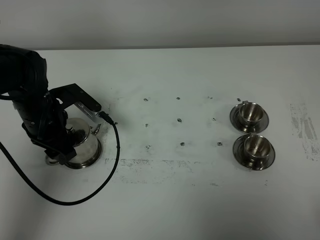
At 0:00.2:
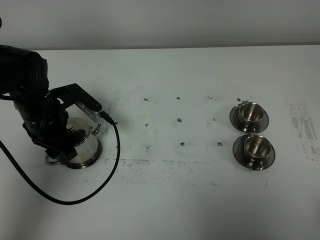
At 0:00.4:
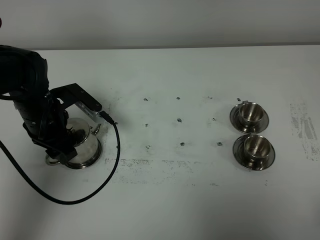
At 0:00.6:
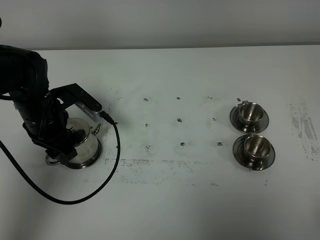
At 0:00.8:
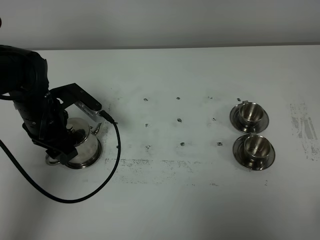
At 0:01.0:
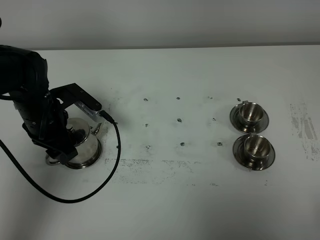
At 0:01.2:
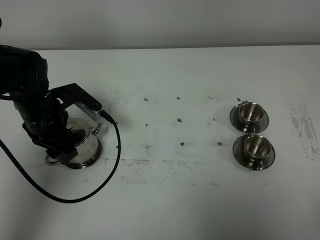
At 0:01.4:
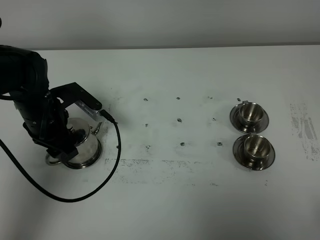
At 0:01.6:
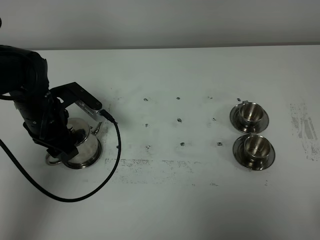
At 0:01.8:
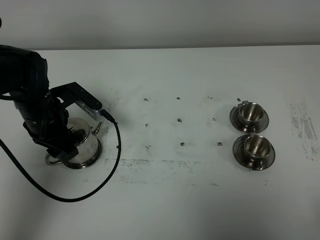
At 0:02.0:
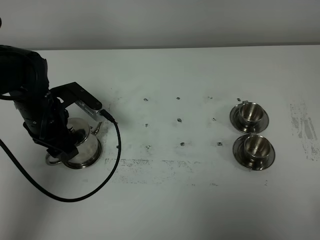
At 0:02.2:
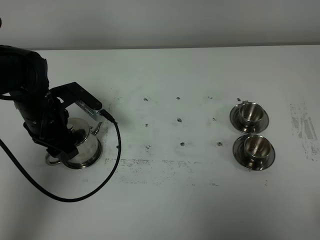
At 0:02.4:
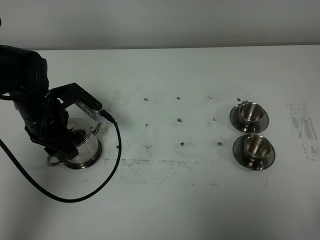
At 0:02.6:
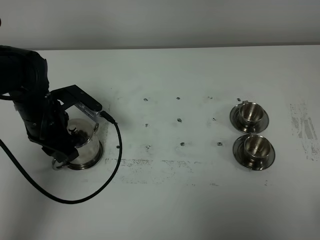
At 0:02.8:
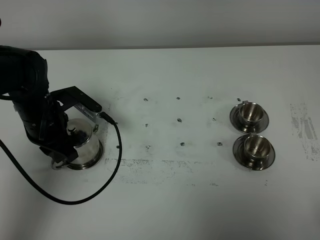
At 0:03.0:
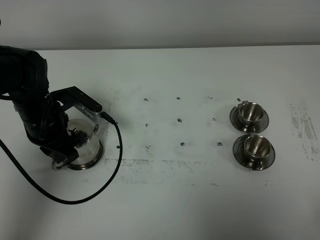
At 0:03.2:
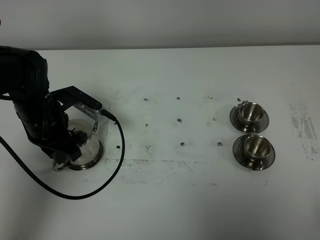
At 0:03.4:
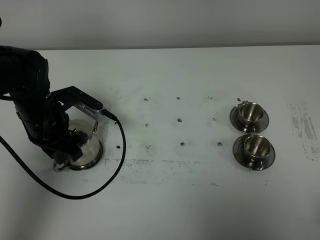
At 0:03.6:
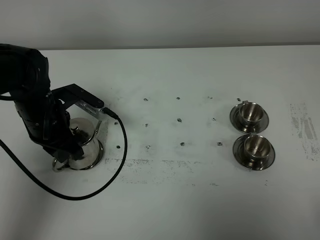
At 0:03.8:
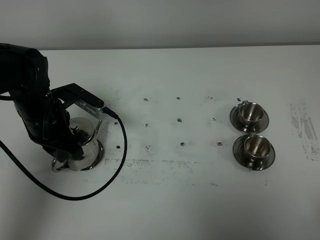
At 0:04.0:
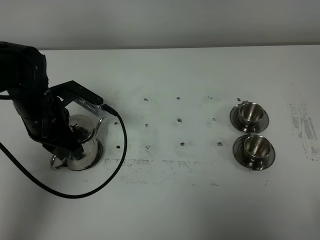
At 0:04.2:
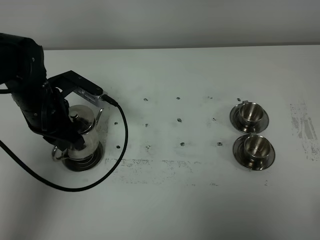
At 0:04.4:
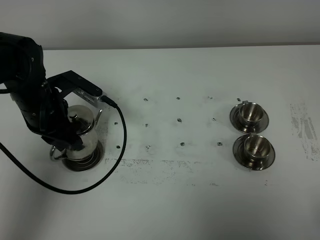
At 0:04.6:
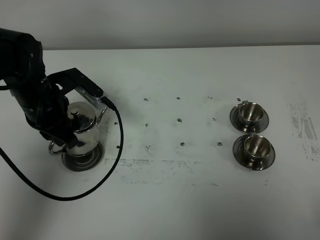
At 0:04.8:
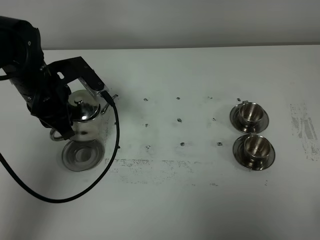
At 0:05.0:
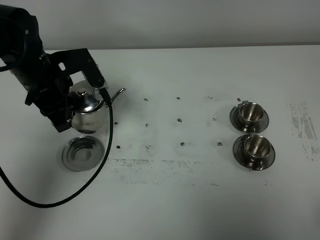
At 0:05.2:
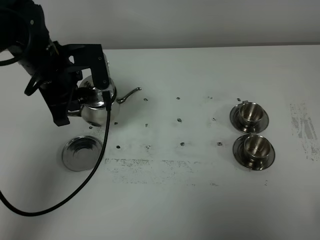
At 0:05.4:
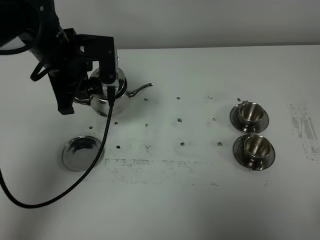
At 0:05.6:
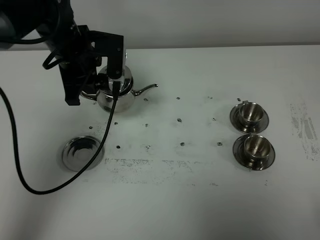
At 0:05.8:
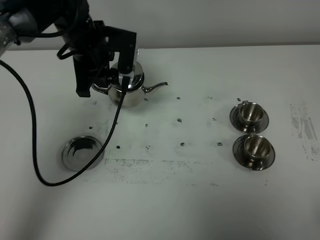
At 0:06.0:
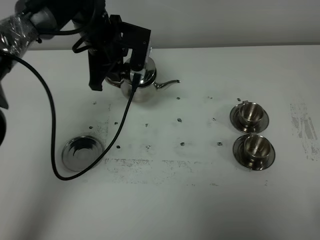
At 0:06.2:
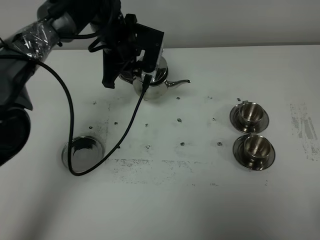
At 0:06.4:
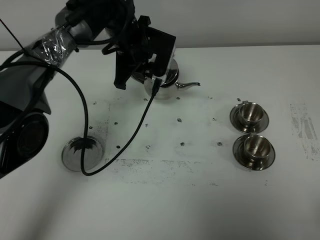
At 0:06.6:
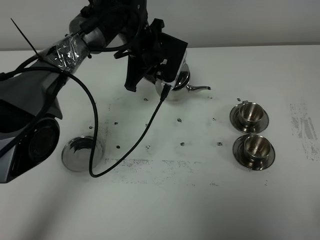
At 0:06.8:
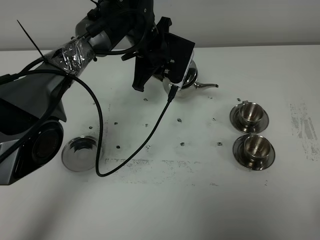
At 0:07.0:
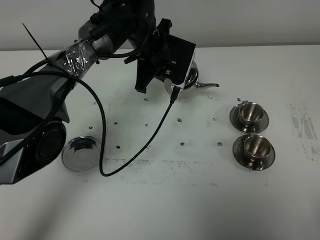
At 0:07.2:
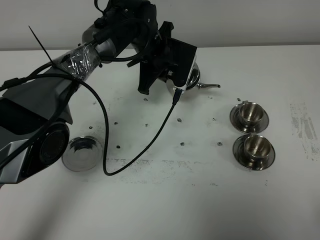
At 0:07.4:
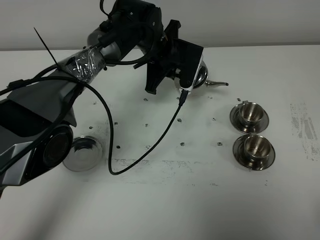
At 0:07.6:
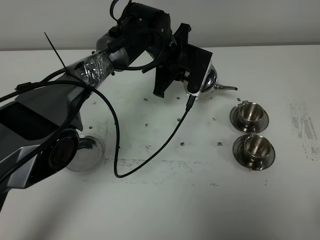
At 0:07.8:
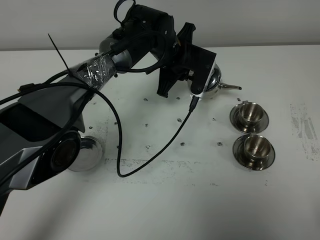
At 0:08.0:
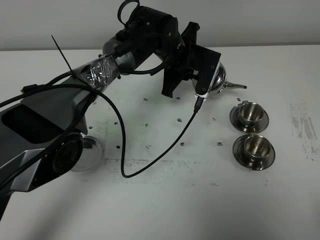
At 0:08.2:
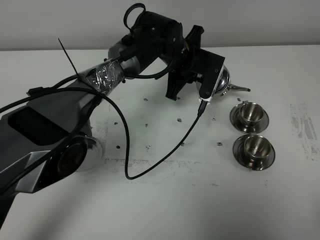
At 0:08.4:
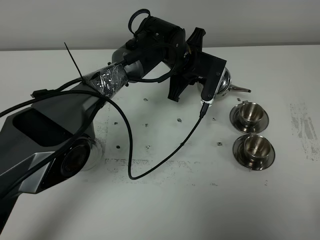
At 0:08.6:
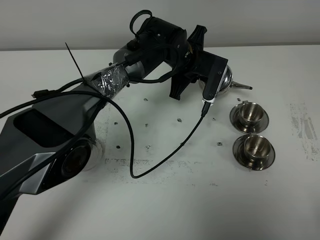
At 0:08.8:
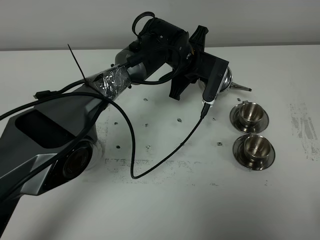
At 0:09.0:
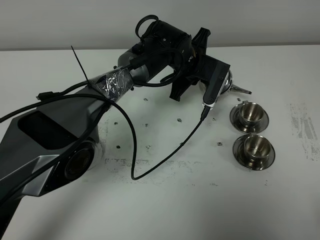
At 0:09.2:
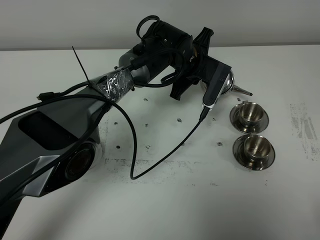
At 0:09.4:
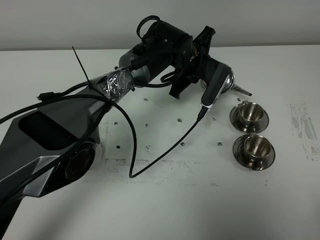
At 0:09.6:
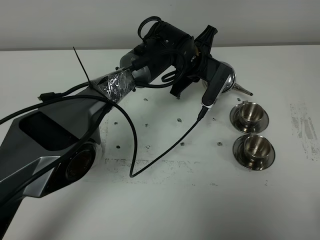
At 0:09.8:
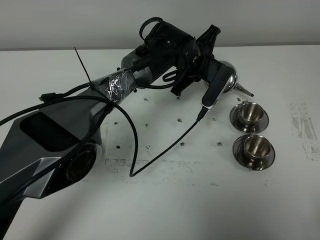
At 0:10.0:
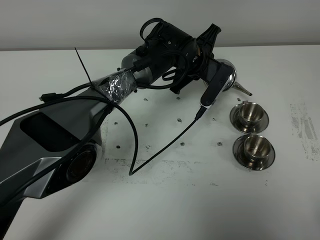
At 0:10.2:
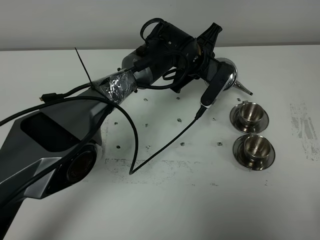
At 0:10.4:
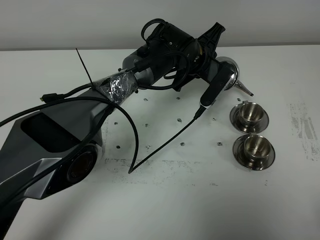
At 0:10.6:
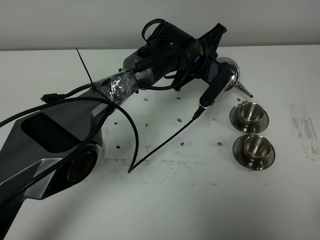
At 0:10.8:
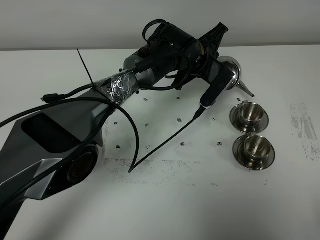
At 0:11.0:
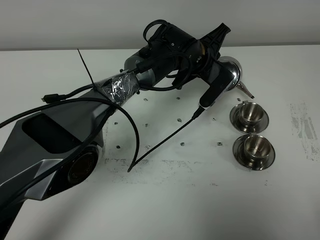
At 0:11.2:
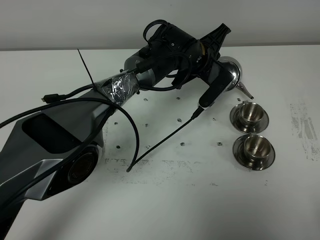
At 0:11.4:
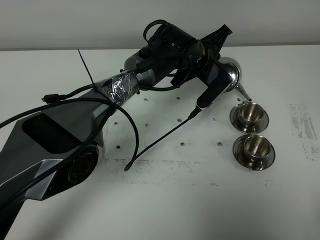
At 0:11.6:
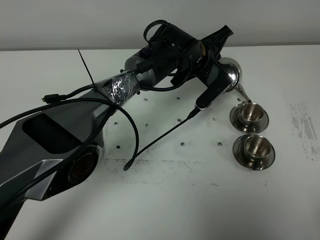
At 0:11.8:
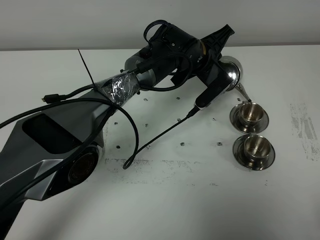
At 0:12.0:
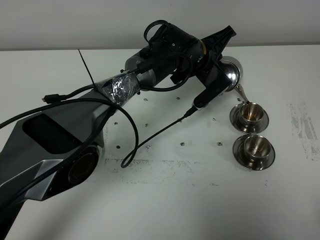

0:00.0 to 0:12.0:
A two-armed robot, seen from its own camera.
Task of the whole recording: grasp the stainless steel teapot and pour the tea into the two stainless steel teacups one by one, put the stainless steel teapot back in its original place.
Step, 0:00.0 to 0:04.0: Pick up the teapot with the left gripper.
0:00.0 to 0:01.6: Neither gripper changes place.
0:01.6 to 0:03.0: The left gripper closes.
0:03.0 to 0:04.4: The grippers make only small movements.
0:04.4 to 0:06.0: The left gripper heads forward and to the right, covering approximately 15 cm.
0:06.0 to 0:07.6: The left gripper moves to the right and downward, approximately 10 cm.
0:09.0 to 0:10.4: The grippers stay close to where they were, moving slightly.
0:10.4 to 0:12.0: The grippers make only small movements.

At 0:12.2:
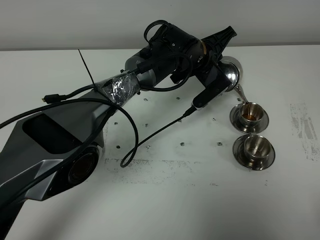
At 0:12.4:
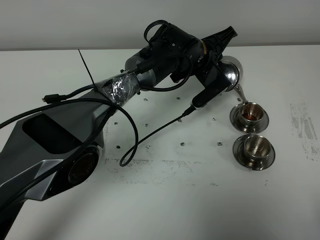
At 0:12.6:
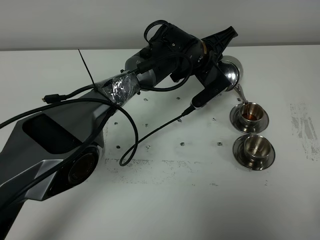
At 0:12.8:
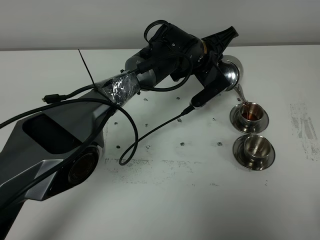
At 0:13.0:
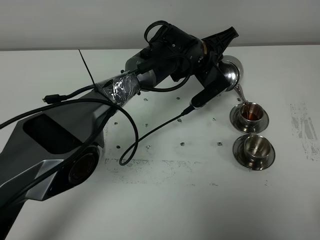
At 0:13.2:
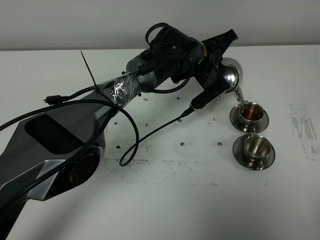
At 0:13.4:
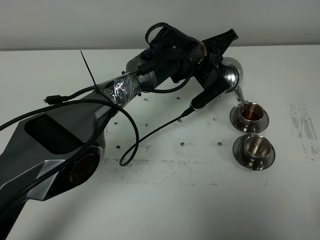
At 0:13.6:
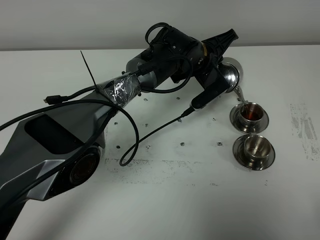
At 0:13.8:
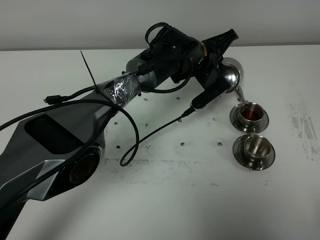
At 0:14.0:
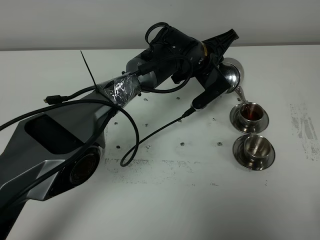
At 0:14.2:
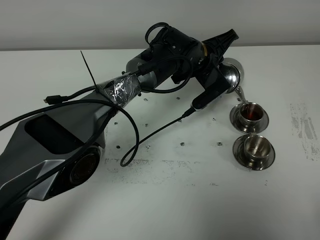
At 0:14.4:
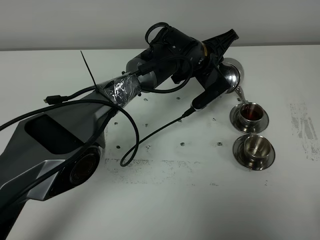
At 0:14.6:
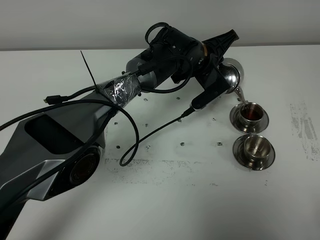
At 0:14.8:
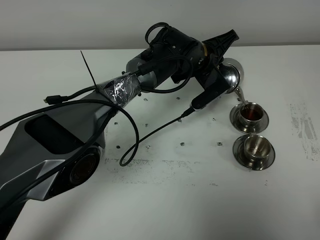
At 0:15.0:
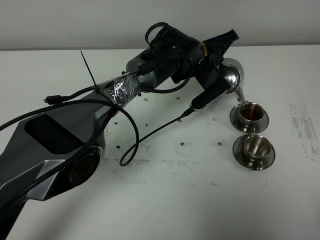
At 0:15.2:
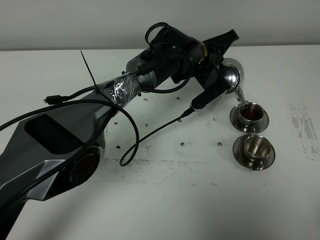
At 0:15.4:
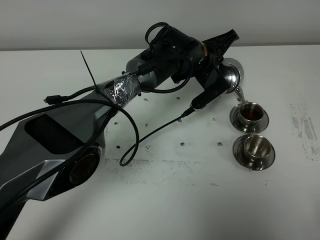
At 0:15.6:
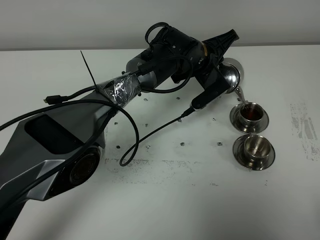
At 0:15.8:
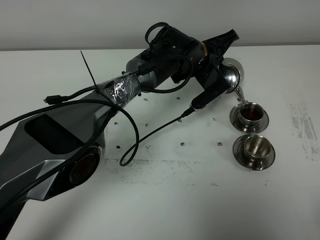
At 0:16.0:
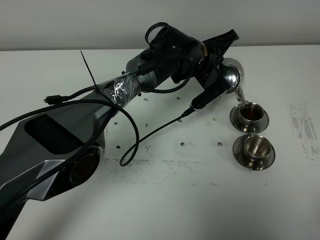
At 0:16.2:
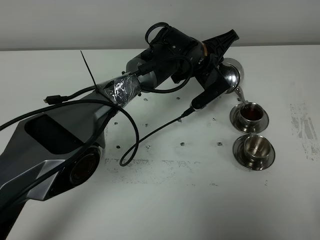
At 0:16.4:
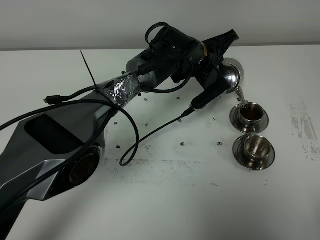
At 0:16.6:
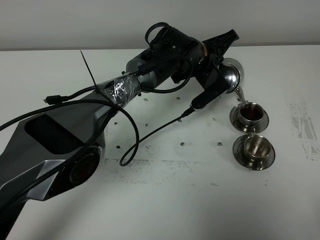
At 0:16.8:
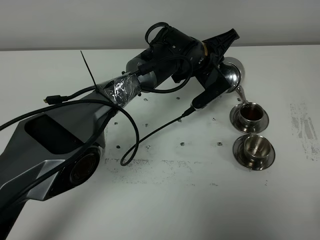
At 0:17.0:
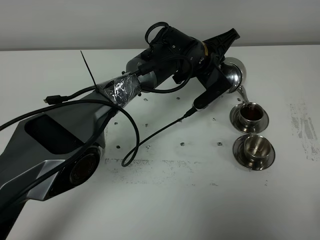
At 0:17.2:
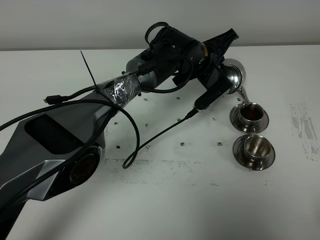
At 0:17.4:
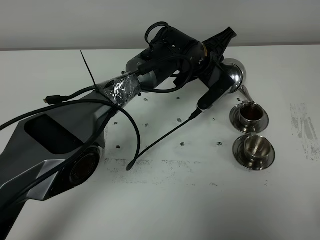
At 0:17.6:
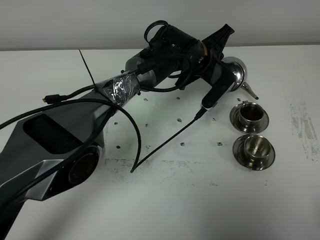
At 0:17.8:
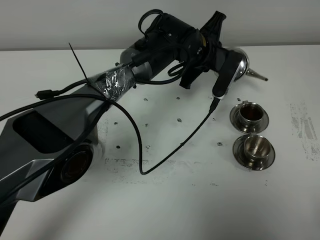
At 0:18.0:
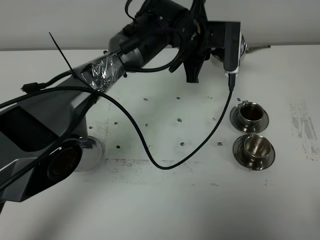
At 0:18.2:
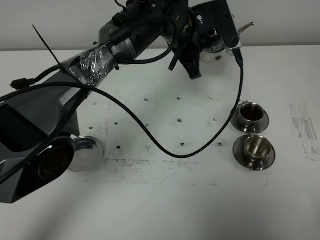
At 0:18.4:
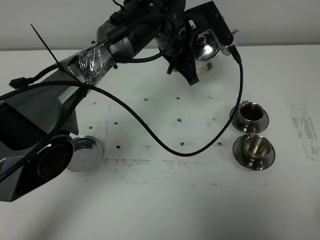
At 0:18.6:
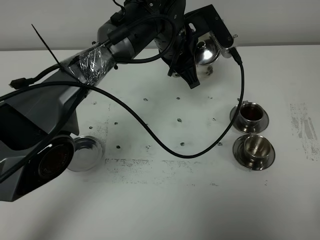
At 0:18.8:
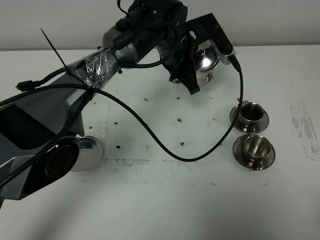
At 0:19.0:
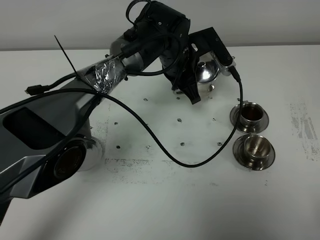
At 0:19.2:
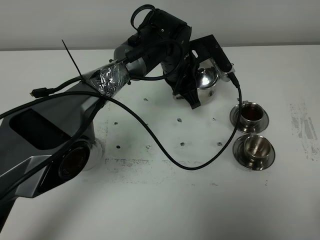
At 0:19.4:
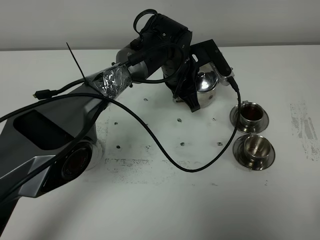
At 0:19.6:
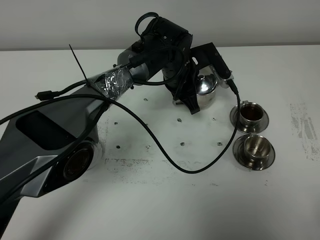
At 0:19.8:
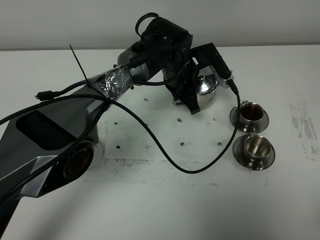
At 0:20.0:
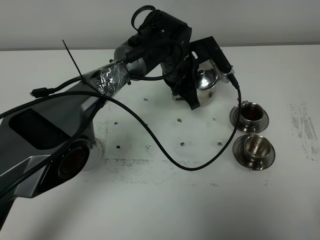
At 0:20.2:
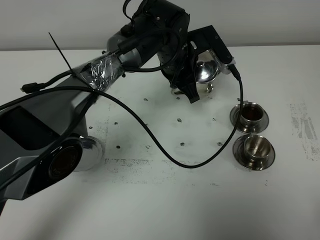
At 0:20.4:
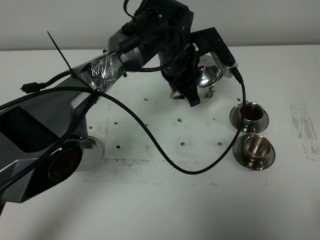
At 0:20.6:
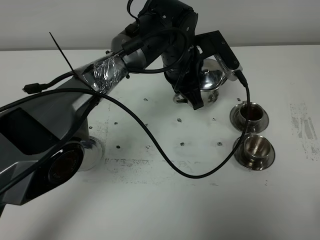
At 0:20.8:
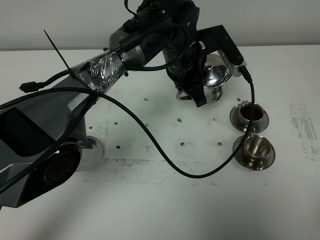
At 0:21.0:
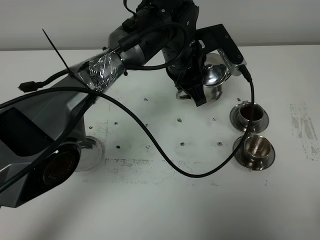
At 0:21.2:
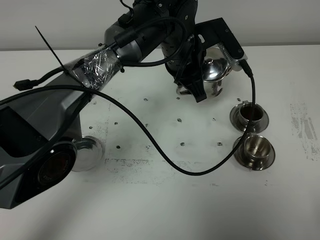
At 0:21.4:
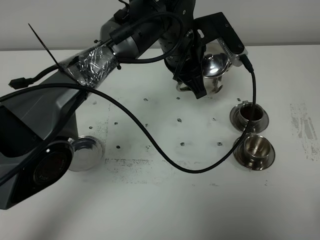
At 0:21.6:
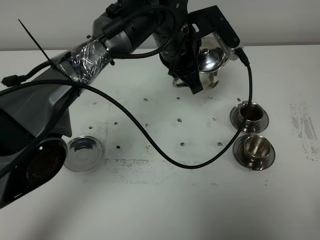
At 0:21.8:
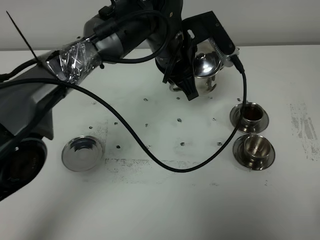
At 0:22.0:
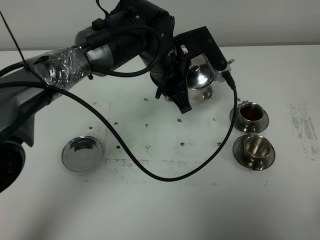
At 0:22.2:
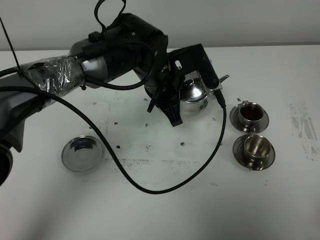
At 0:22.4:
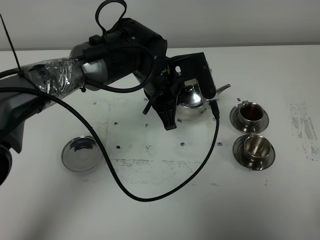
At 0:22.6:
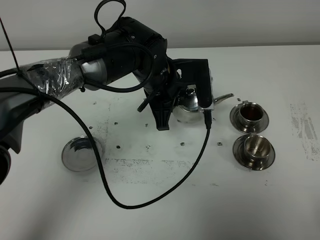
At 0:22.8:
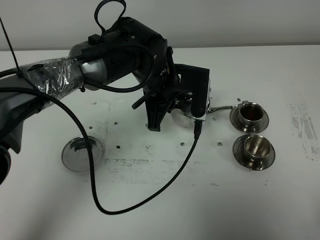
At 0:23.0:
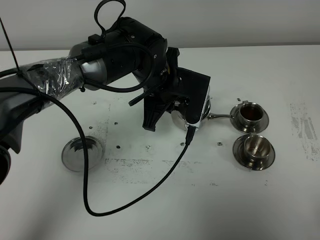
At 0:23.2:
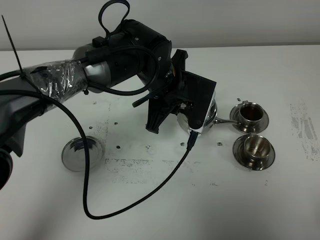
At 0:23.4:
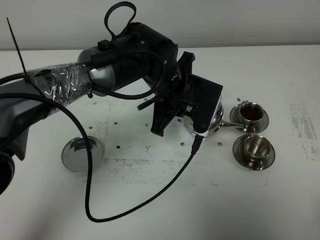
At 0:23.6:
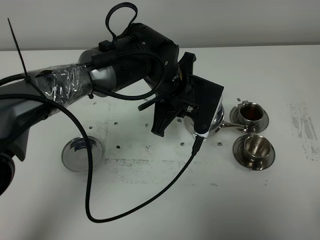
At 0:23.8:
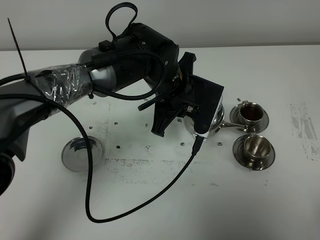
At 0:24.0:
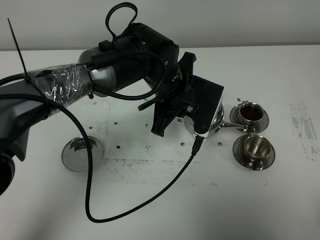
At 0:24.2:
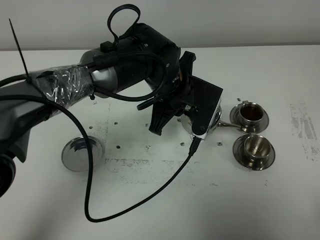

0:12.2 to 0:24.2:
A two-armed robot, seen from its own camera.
Task of the whole recording: grasp the stainless steel teapot and pour the tea into the two stainless steel teacups one by one, put the stainless steel teapot back in its original place.
0:12.2 to 0:16.6: Neither gripper changes place.
0:16.6 to 0:18.2: The left gripper heads upward, covering some 10 cm.
0:18.2 to 0:19.8: The left gripper heads downward, covering roughly 10 cm.
0:19.8 to 0:21.2: The left gripper travels upward by some 10 cm.
0:21.2 to 0:22.6: The left gripper shifts by about 5 cm.
